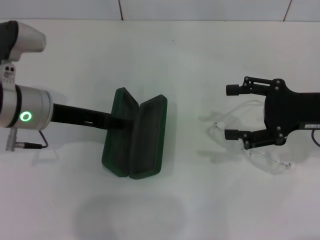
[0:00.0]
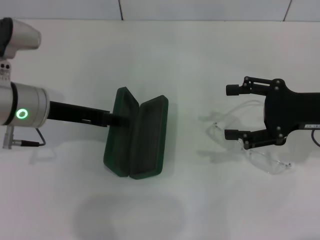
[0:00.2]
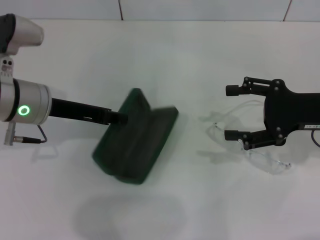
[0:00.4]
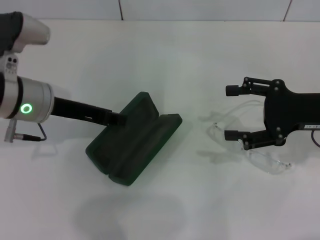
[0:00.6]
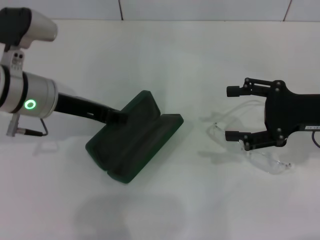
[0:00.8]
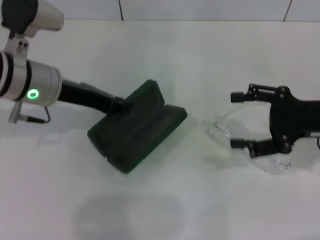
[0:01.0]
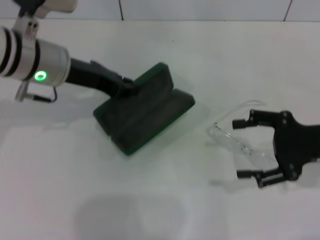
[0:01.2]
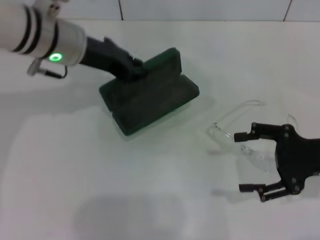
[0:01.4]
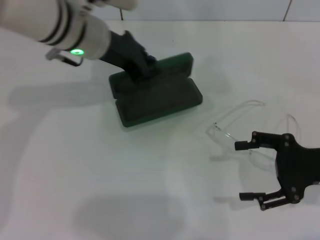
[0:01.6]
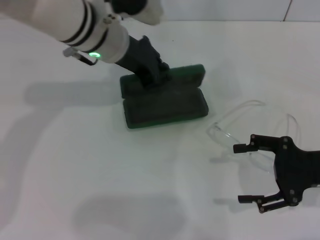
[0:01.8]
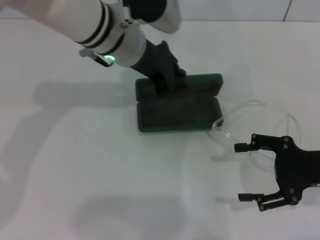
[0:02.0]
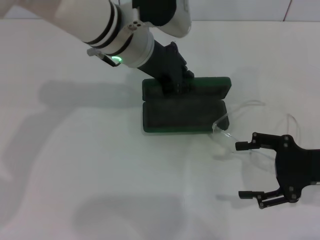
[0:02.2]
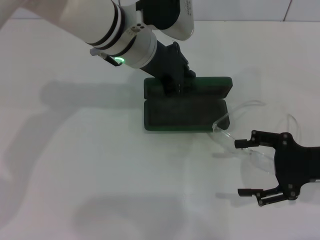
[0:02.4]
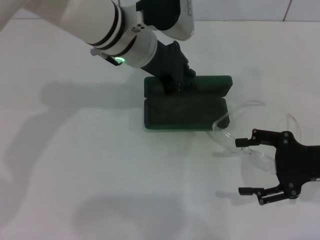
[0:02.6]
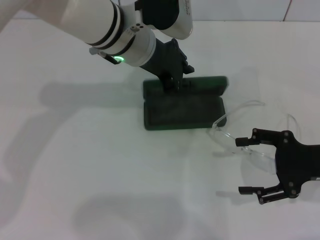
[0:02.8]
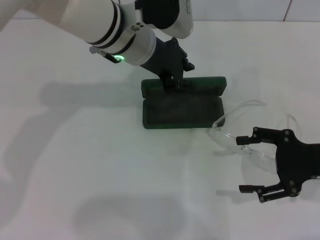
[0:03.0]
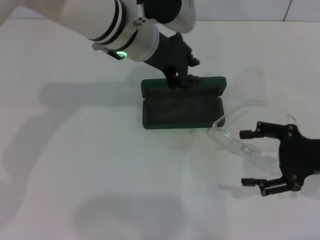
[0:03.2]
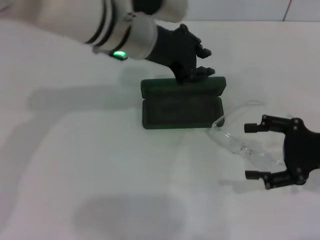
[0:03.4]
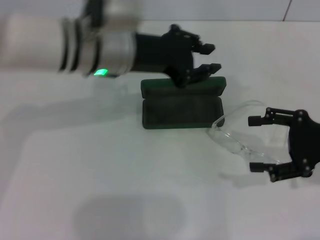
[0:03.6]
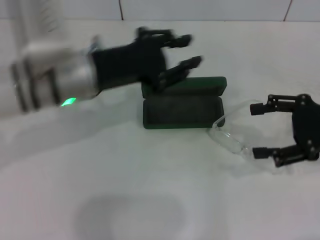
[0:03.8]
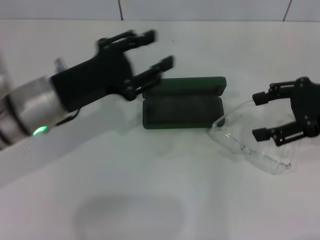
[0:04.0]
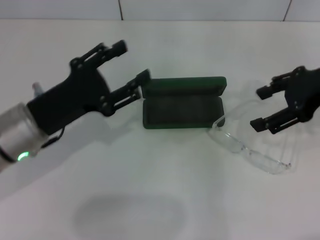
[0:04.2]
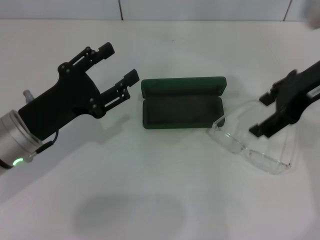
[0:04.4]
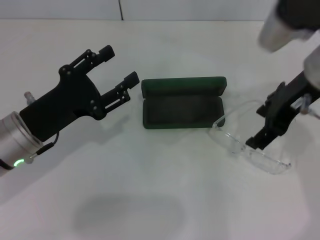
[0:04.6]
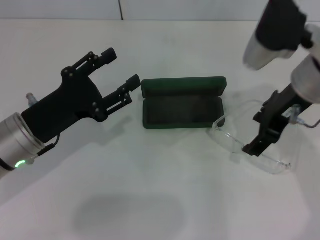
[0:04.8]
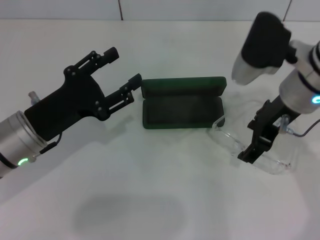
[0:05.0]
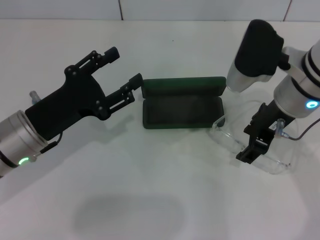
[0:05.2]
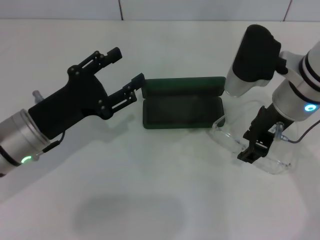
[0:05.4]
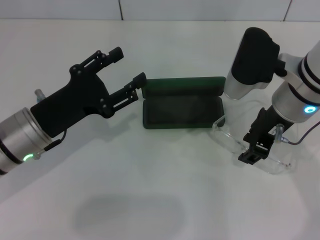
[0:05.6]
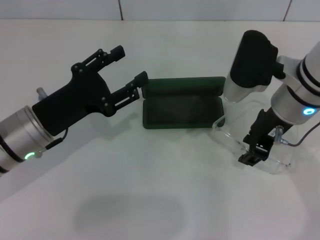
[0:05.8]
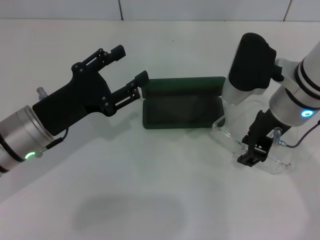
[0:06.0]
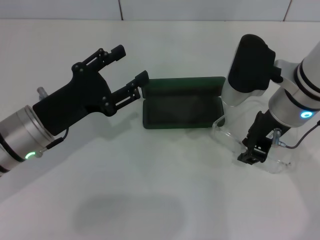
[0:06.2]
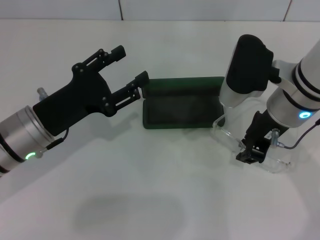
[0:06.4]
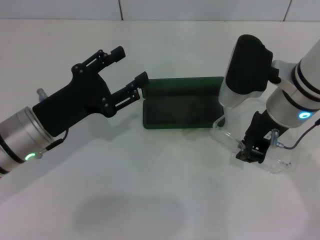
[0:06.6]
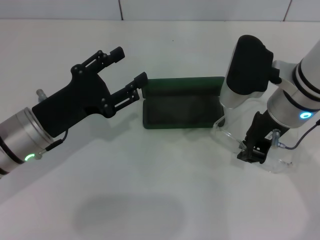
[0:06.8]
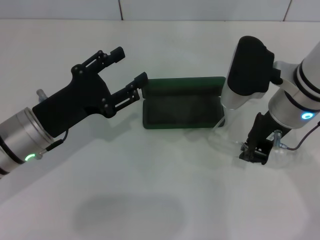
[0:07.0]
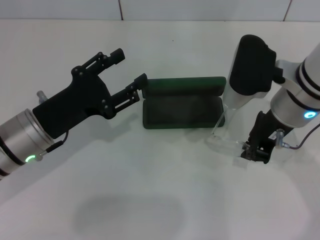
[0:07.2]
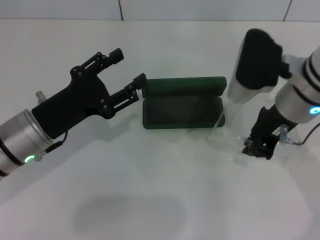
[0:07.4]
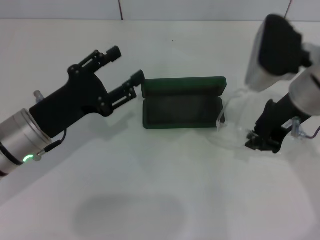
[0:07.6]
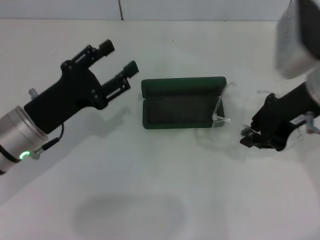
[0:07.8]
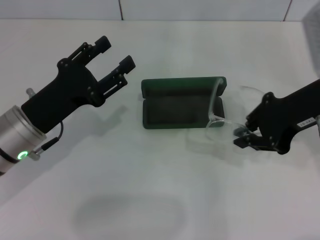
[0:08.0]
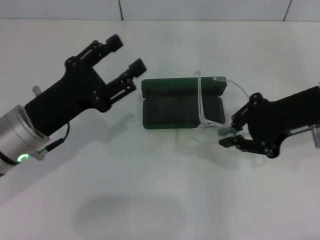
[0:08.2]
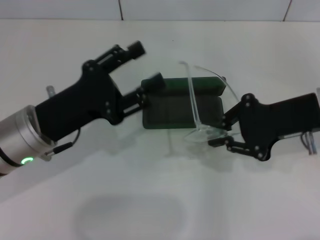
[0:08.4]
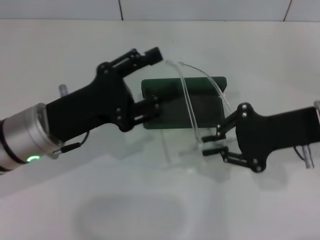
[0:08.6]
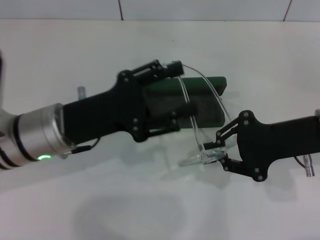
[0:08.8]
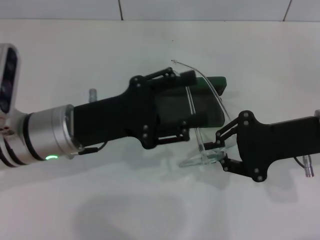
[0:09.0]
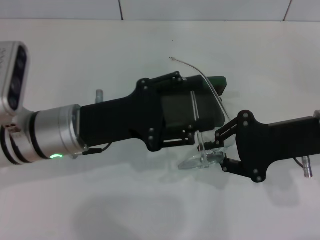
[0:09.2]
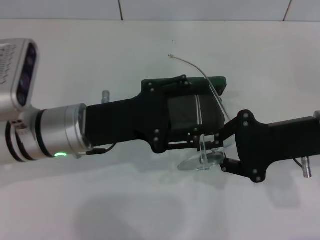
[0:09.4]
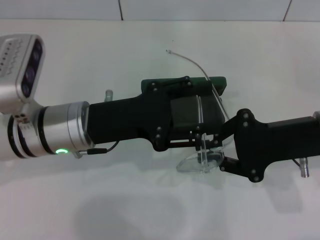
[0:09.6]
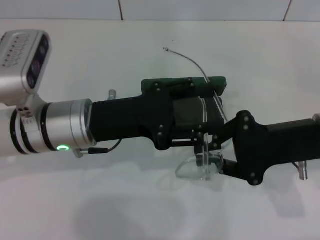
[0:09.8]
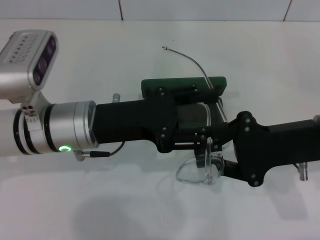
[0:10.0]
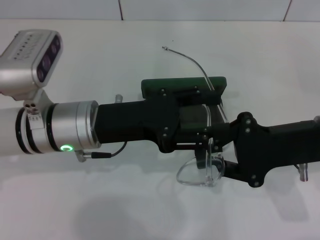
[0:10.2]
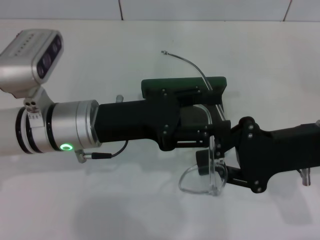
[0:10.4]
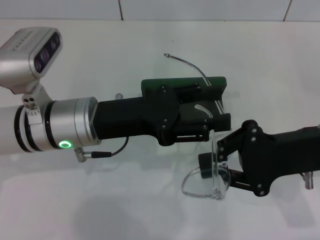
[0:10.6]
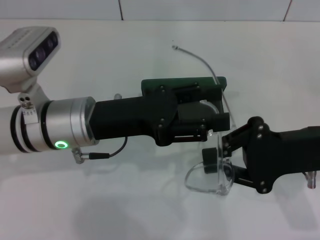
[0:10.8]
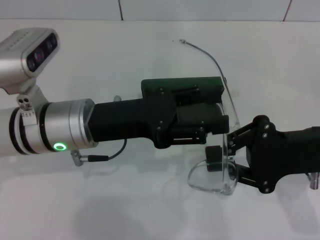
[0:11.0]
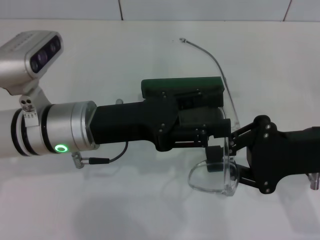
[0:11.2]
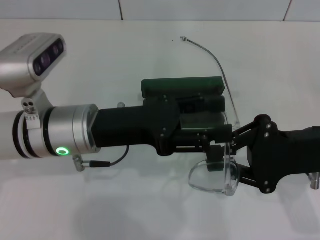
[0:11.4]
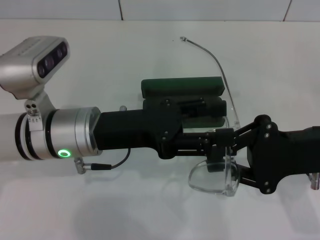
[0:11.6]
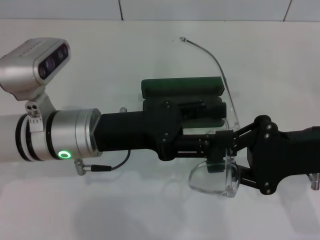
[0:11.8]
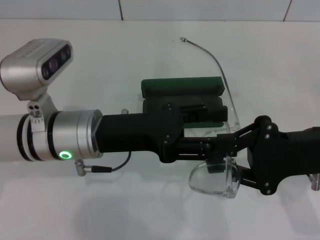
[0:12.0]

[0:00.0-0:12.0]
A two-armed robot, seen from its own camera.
Step, 0:00.6 to 0:02.8: Place the glasses case in the center of the table with your left hand.
Step, 0:03.2 to 0:07.0: Grab the eyeglass frame with your right hand.
0:00.0 to 0:01.6: The left gripper shifts roughly 15 cm to the right, forward and upward, and closes up; the right gripper heads backward, covering some 5 cm.
0:01.6 to 0:03.0: The left gripper moves to the right, some 5 cm.
0:03.0 to 0:04.4: The left gripper travels to the left, backward and downward by approximately 25 cm, and opens its fingers. Meanwhile the right gripper is displaced upward, forward and to the left by roughly 20 cm.
0:04.4 to 0:06.0: The right gripper moves downward and to the left, approximately 10 cm, and closes.
0:06.0 to 0:07.6: The right gripper closes its fingers.
0:07.6 to 0:09.0: The right gripper heads to the right, covering approximately 5 cm; the left gripper moves about 5 cm.
0:10.4 to 0:12.0: There are only small adjustments of the grippers.

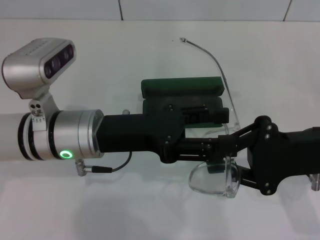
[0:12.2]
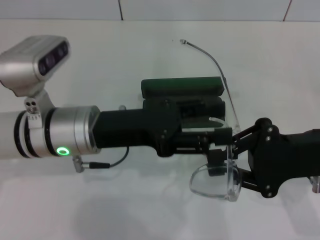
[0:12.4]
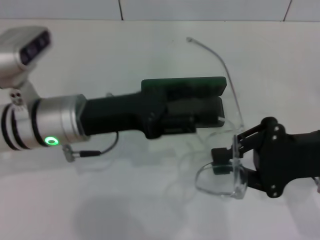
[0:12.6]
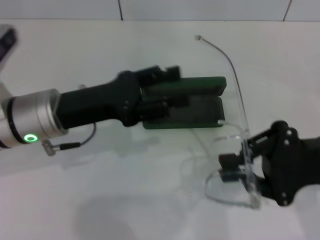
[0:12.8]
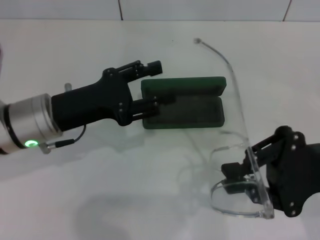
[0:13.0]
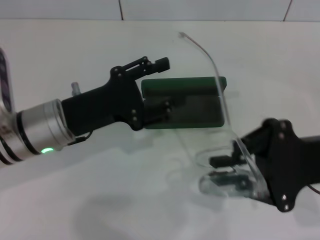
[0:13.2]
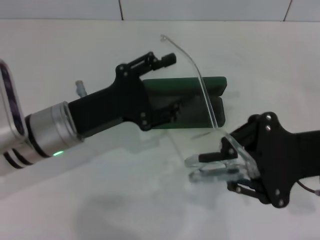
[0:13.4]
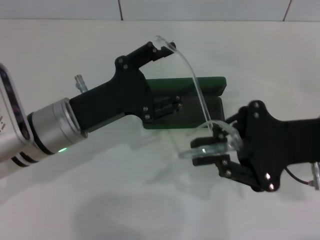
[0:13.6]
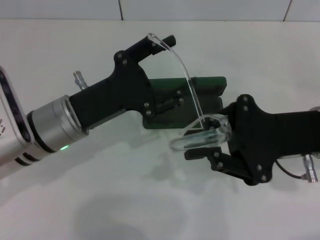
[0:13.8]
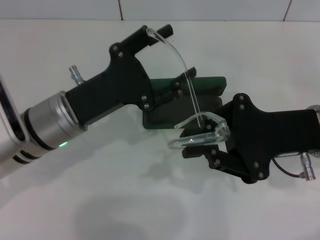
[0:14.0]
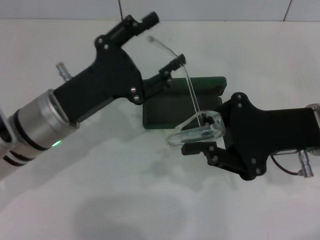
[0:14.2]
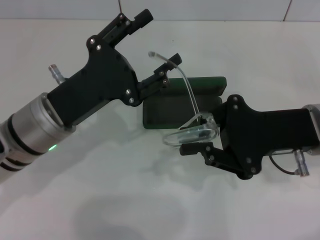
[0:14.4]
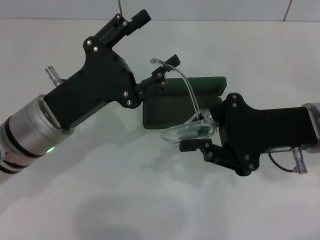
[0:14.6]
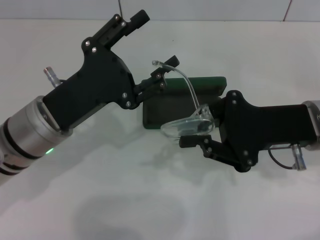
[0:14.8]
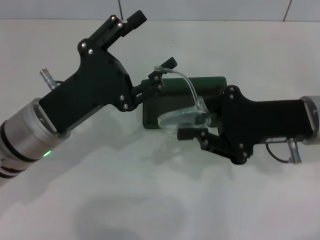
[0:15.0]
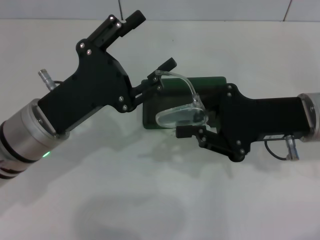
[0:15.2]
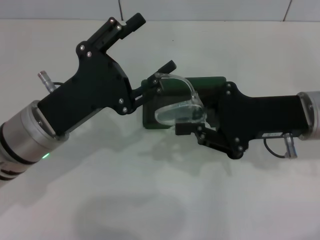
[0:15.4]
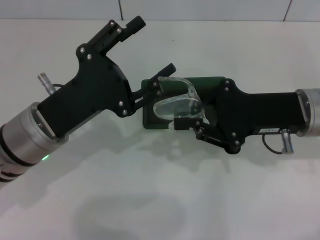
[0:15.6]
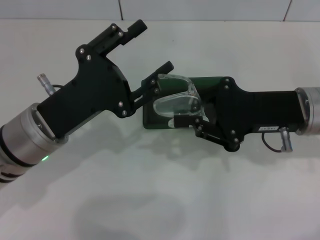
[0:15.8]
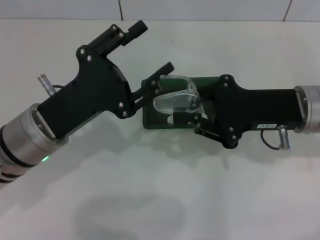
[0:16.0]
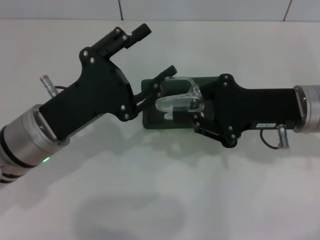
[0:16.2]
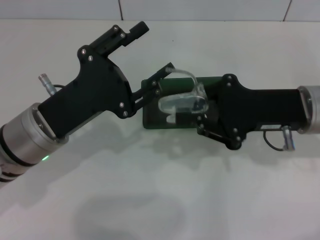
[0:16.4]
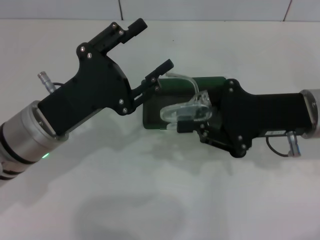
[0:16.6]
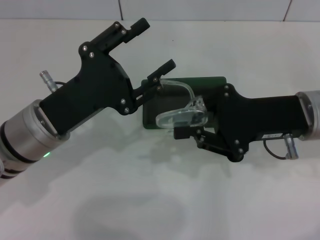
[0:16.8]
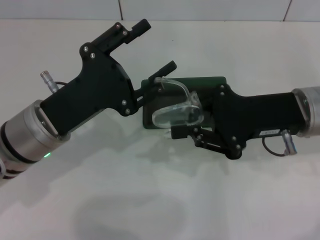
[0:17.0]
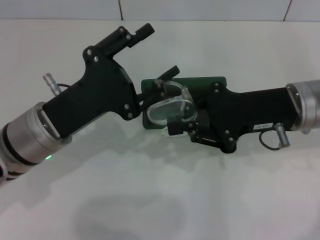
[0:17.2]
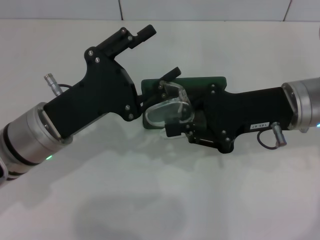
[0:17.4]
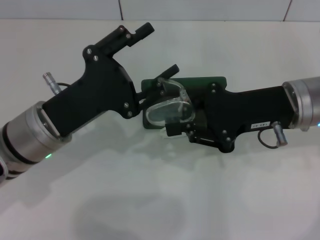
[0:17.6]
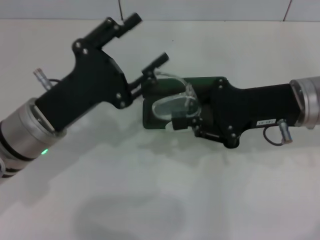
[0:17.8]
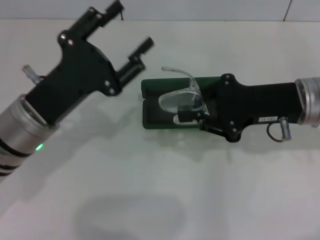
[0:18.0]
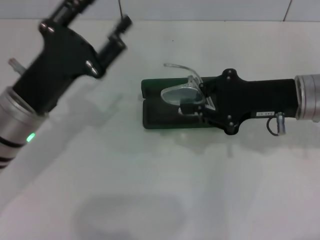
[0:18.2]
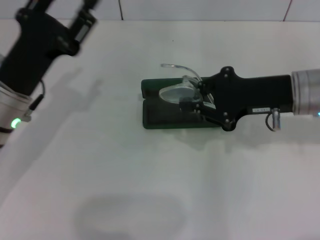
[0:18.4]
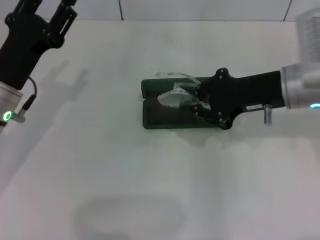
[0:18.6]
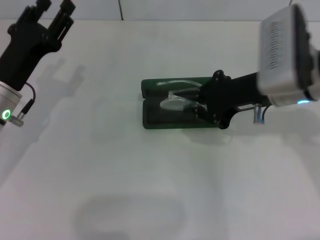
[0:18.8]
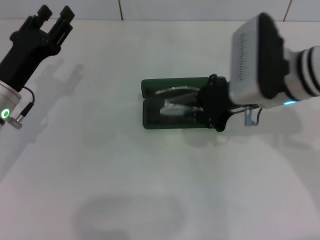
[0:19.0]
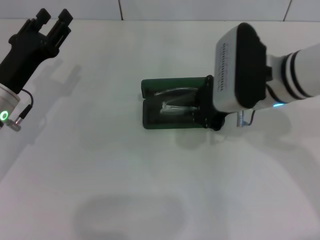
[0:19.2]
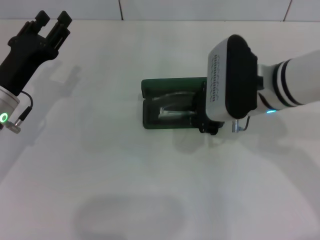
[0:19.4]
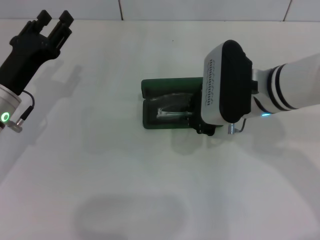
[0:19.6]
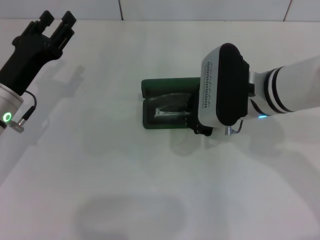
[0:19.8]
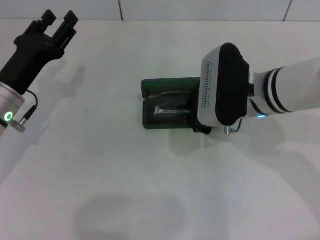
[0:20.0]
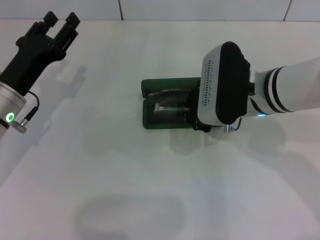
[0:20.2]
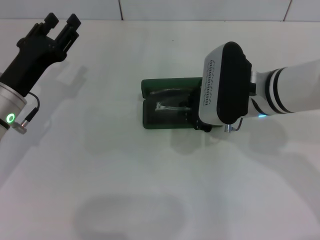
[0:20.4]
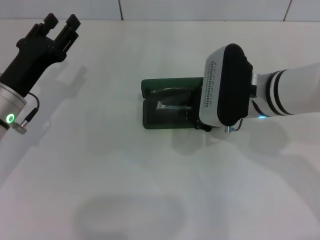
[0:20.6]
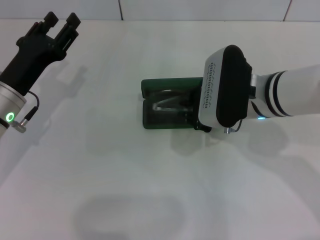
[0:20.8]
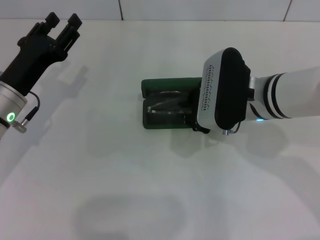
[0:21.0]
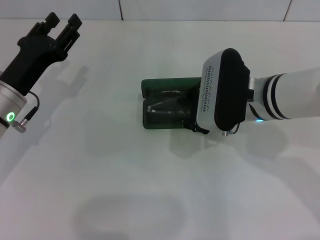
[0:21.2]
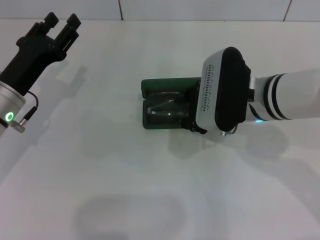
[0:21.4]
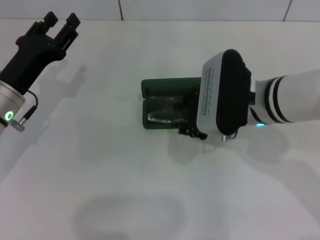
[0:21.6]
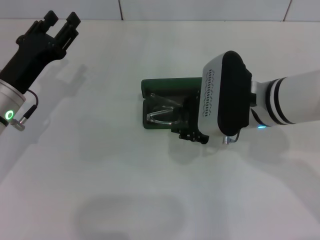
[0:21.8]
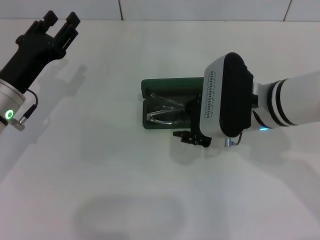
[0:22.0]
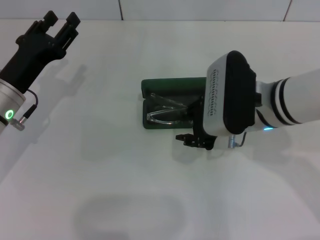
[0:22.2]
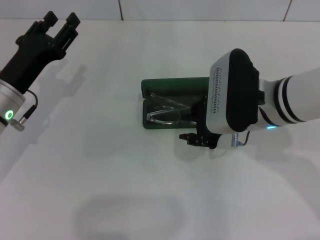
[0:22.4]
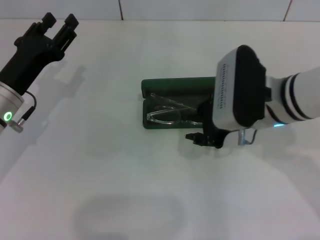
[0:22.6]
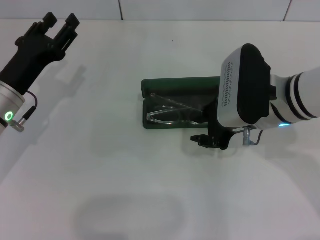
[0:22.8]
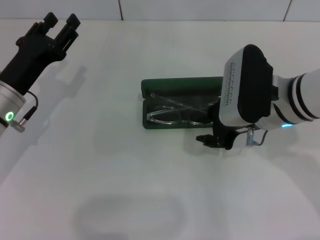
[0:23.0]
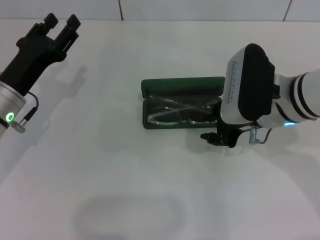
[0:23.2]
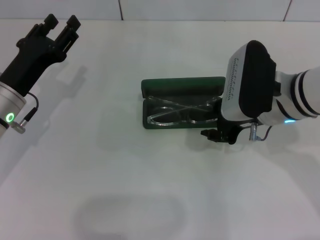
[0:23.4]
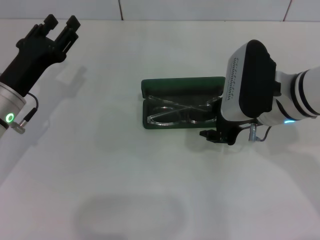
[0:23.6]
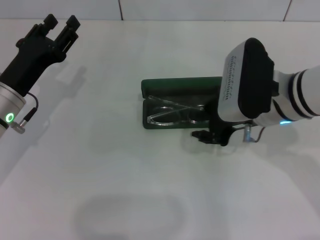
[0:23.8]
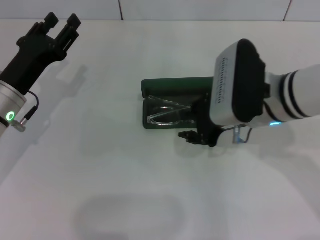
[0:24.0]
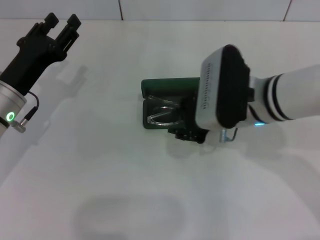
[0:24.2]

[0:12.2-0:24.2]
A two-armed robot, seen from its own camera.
Step, 0:12.2 to 0:17.6: Fold the frame with your left hand.
0:15.2 to 0:16.6: The two grippers keep their place.
0:18.2 to 0:19.8: The right gripper shifts about 10 cm to the left; the left gripper shifts by about 5 cm.
0:19.8 to 0:21.2: Both grippers stay put.
0:21.2 to 0:24.2: There are only small adjustments of the grippers.
